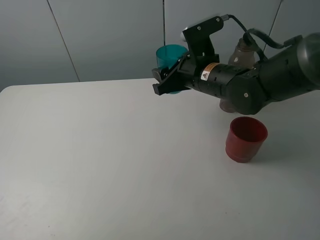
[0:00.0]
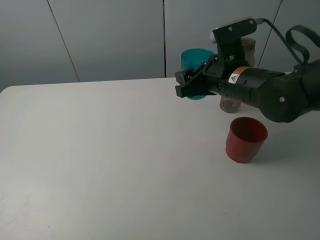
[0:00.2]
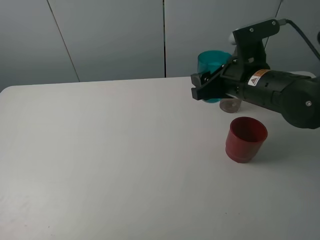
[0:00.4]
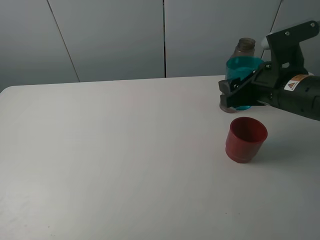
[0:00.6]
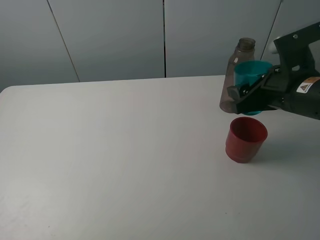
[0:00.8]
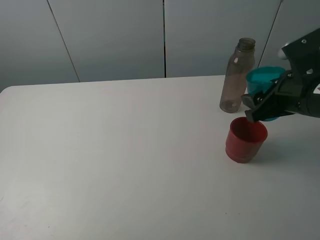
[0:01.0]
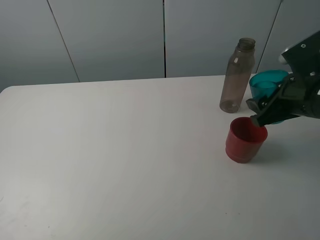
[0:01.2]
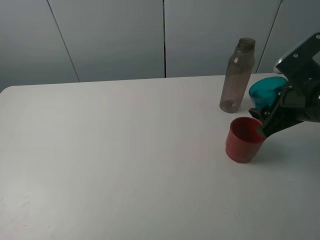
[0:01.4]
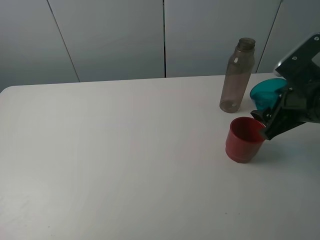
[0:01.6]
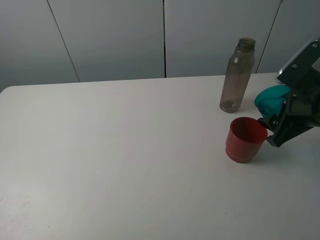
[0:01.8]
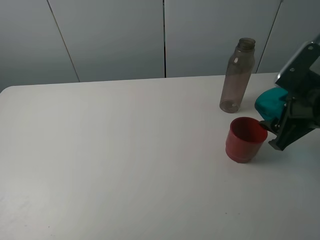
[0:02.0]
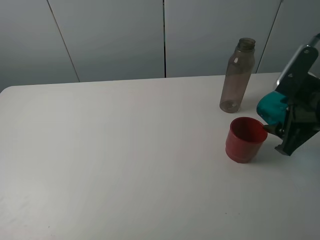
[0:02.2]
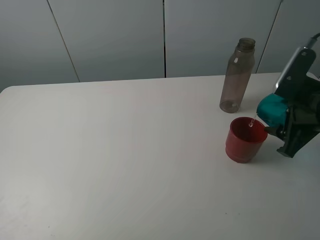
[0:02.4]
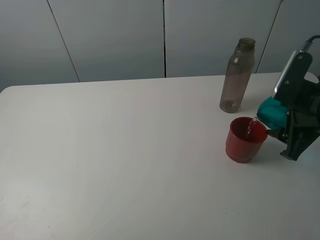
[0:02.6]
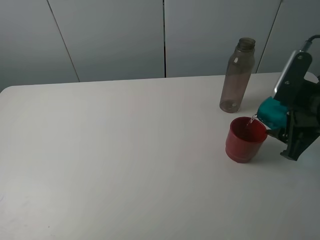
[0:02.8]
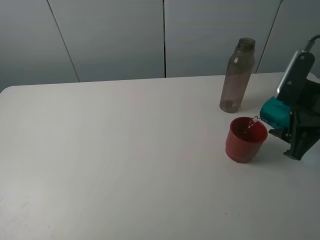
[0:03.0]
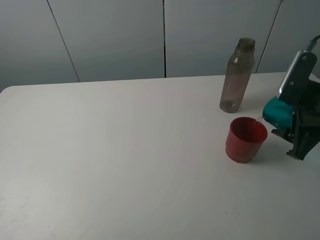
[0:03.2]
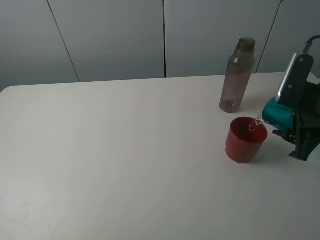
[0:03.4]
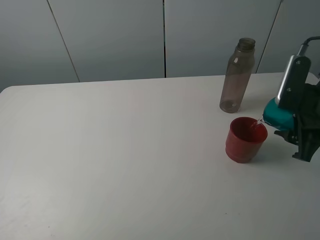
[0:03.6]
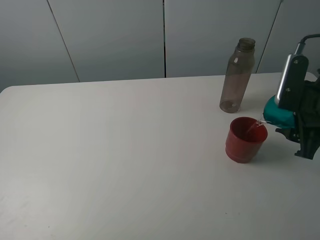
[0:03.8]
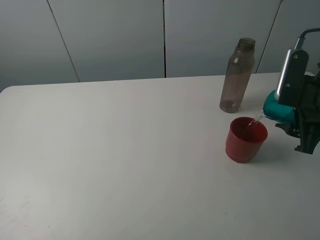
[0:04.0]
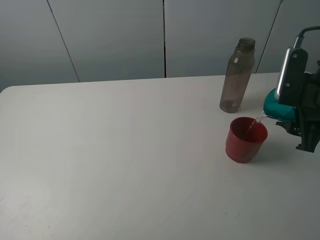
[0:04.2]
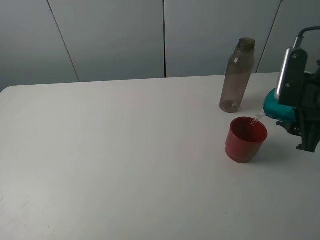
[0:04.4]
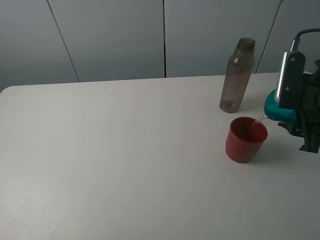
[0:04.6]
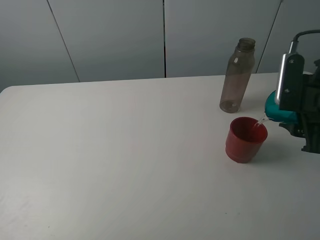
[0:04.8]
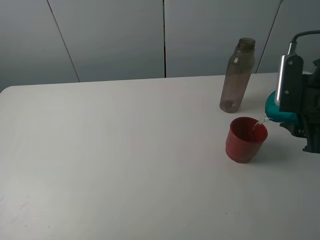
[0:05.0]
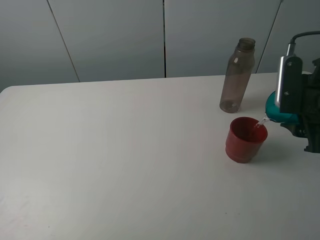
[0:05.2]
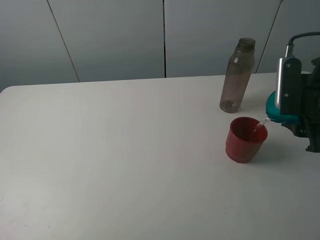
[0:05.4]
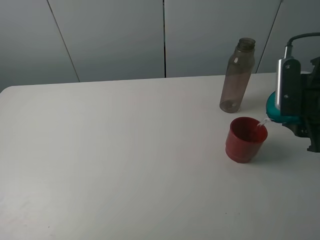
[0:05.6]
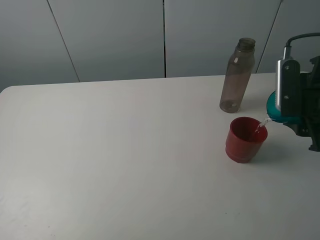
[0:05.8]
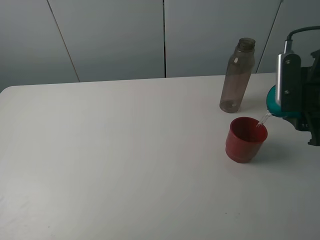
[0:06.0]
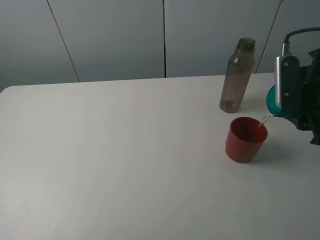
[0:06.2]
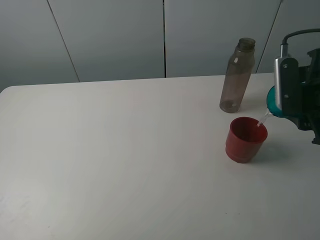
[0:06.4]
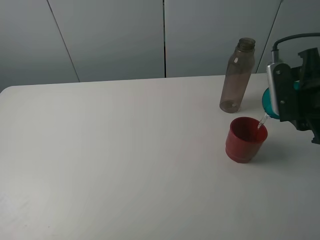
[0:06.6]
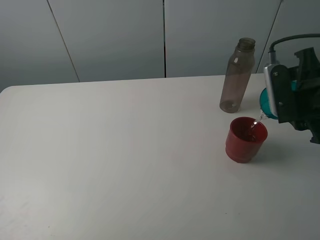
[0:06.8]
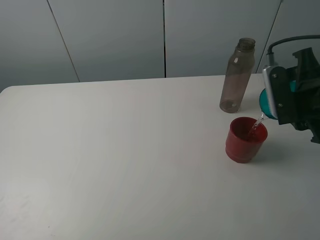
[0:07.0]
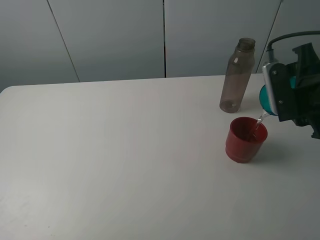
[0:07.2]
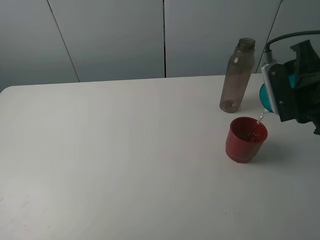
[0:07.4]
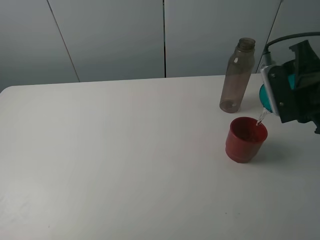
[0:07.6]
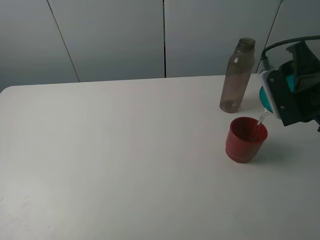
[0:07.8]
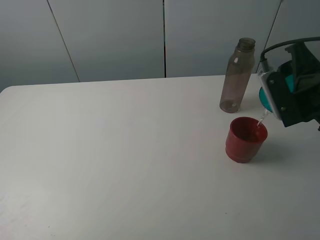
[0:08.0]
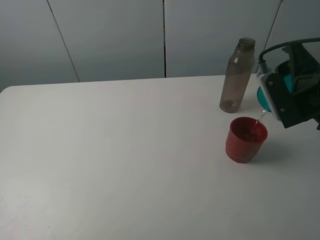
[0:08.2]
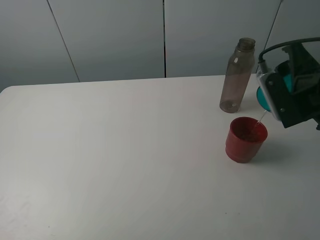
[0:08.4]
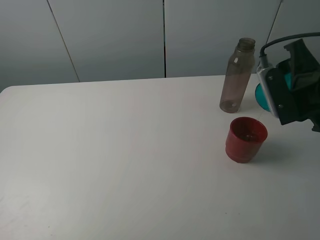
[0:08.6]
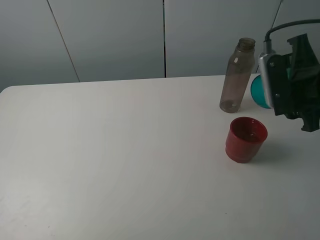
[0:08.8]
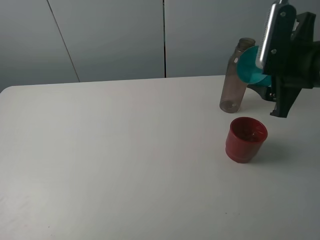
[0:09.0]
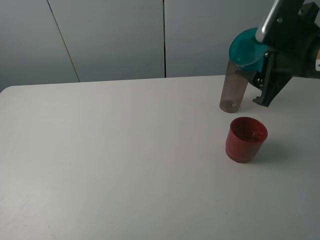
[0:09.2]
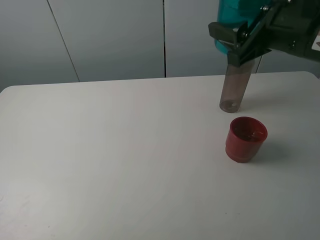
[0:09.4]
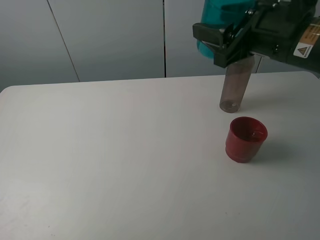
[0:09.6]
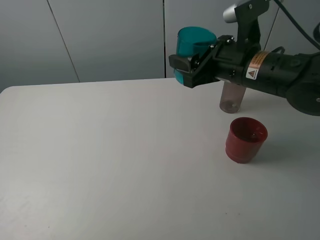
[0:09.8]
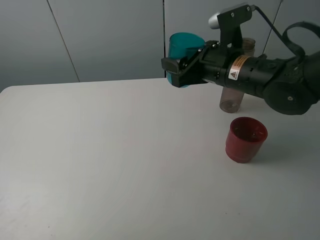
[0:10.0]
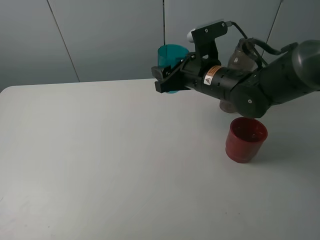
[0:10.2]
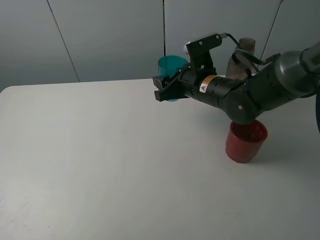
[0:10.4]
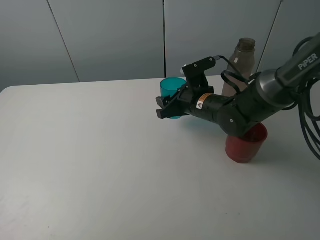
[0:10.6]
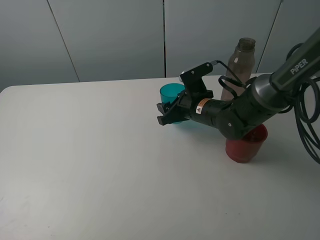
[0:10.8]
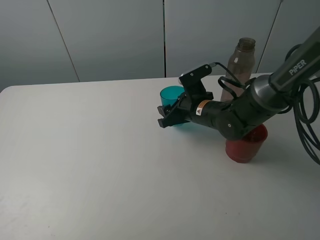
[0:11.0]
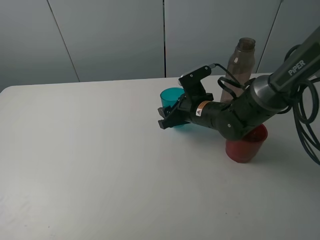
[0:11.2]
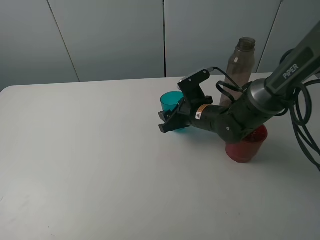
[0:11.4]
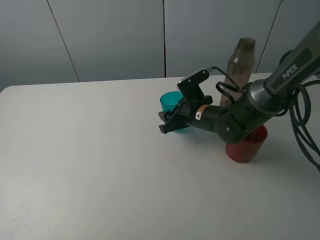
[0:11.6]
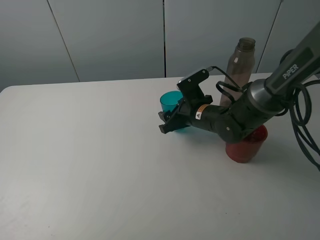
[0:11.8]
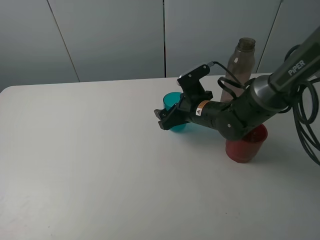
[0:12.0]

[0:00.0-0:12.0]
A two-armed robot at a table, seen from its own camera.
Task of the whole recording: pick up the bottle and pour water into the cup, then pick up the cup containing water and pour it into another cup.
Step, 0:00.0 to 0:08.8: Pour water from blue cup to red cup with the right gripper.
0:00.0 to 0:01.6: The right gripper heads to the right and backward, covering about 20 cm.
0:03.0 to 0:04.4: The grippers move only a little.
0:04.4 to 0:06.0: The grippers make only small movements.
0:09.0 to 0:10.4: The right gripper heads to the left, downward and forward, covering some 20 cm.
0:10.4 to 0:12.0: The right gripper opens.

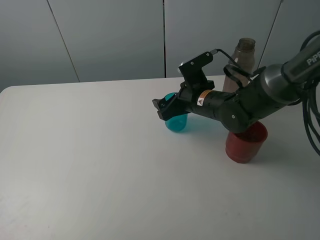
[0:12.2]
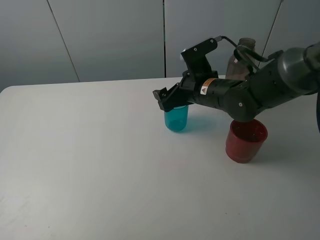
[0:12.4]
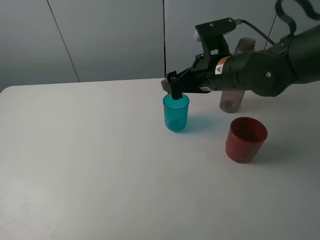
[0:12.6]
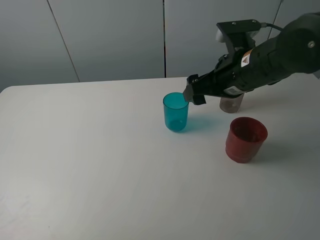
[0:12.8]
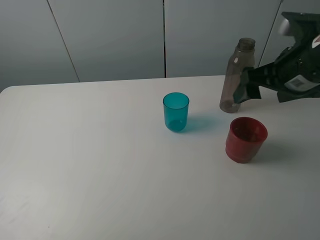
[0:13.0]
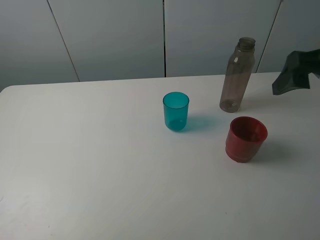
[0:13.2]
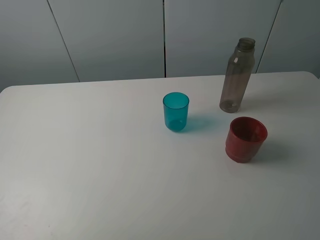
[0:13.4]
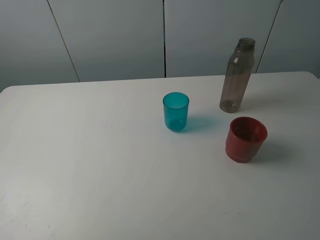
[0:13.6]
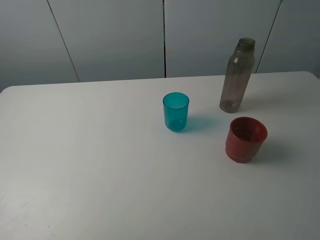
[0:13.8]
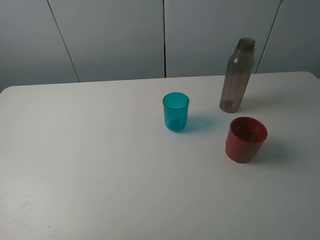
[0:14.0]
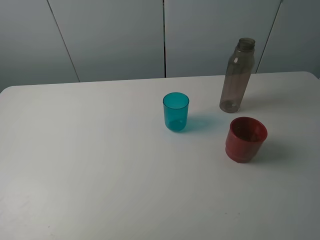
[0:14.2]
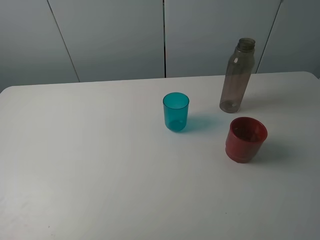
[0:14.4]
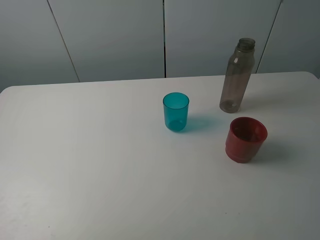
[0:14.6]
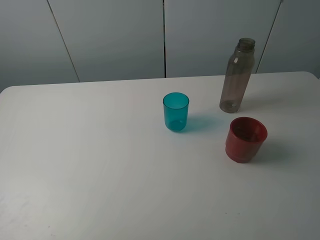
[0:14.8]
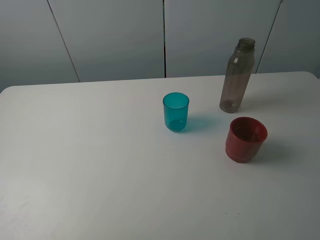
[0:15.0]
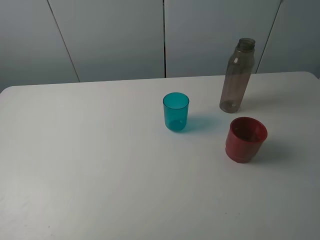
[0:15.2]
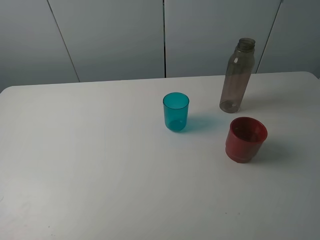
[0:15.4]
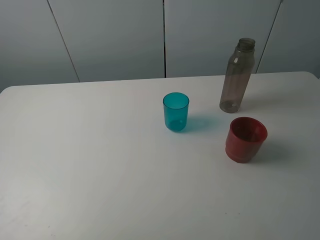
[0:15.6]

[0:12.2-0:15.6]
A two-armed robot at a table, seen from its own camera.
Task of the whole recording: pick up the bottle and pour water into the cup, then pick up the cup containing water and pour it into another cup.
0:12.2 to 0:13.8: The right gripper shifts about 40 cm backward, upward and to the right.

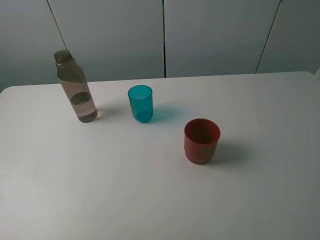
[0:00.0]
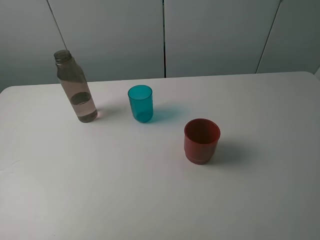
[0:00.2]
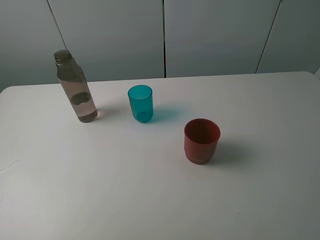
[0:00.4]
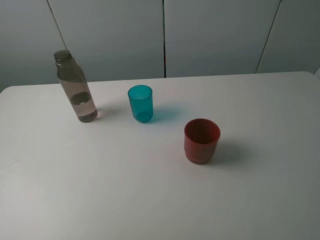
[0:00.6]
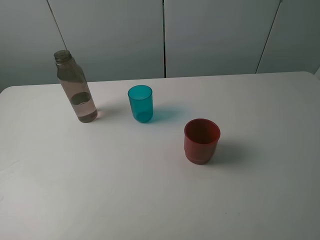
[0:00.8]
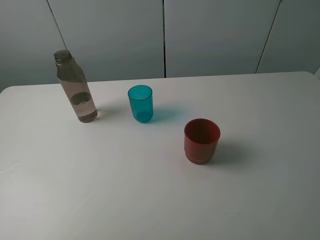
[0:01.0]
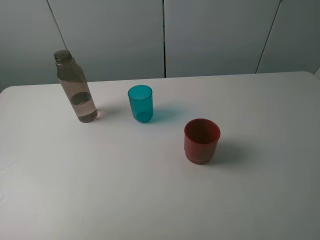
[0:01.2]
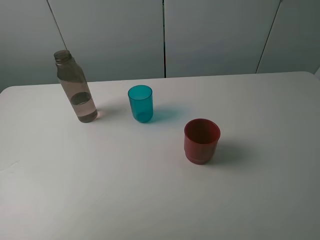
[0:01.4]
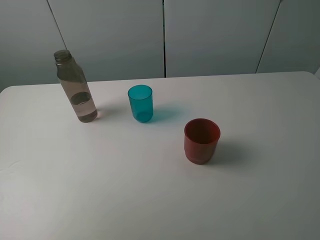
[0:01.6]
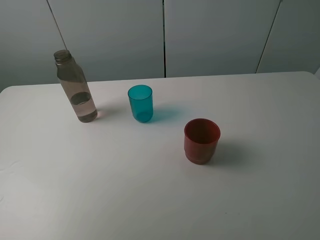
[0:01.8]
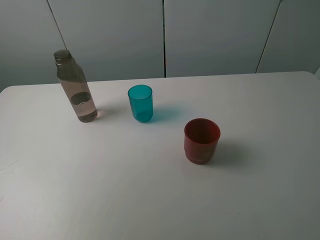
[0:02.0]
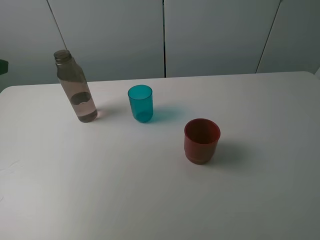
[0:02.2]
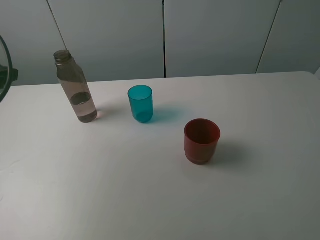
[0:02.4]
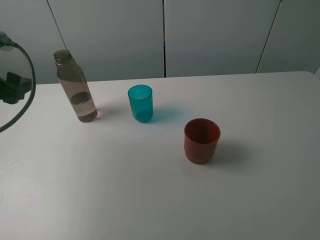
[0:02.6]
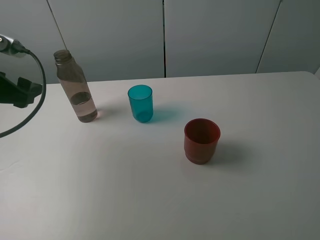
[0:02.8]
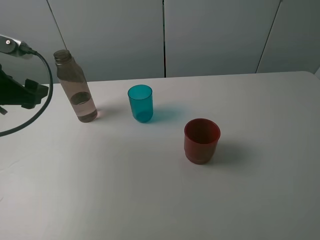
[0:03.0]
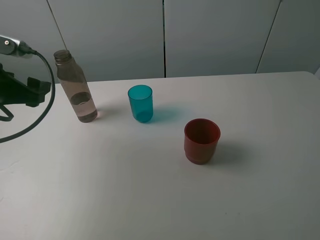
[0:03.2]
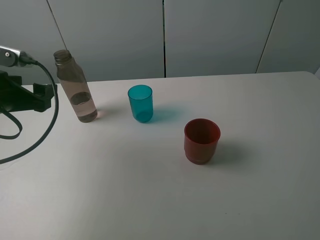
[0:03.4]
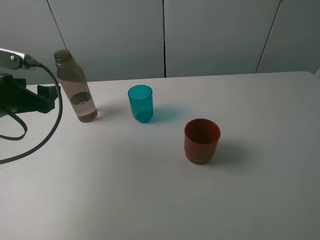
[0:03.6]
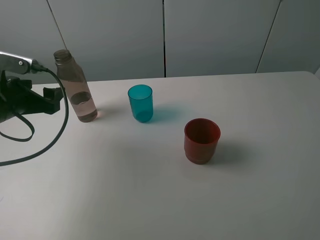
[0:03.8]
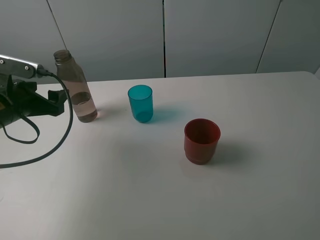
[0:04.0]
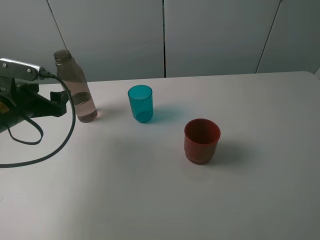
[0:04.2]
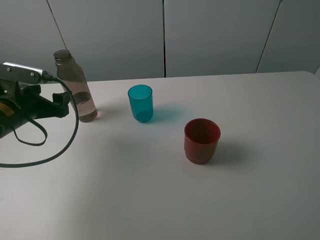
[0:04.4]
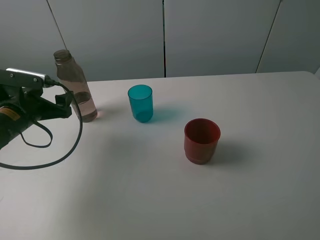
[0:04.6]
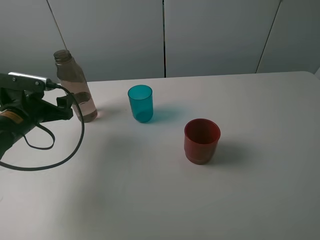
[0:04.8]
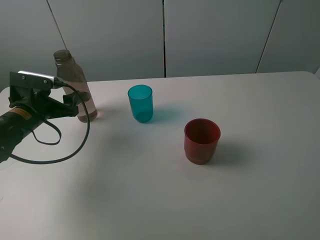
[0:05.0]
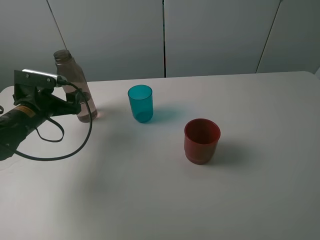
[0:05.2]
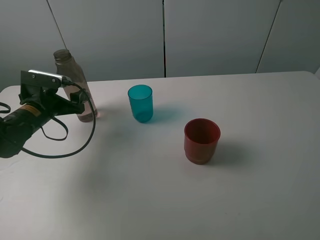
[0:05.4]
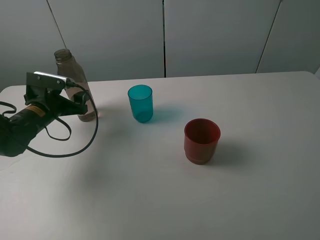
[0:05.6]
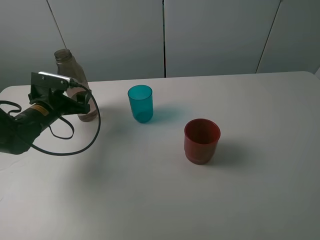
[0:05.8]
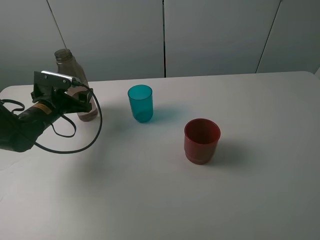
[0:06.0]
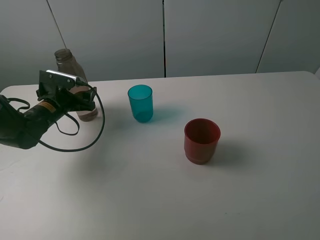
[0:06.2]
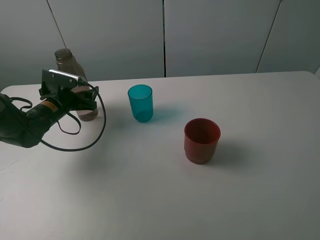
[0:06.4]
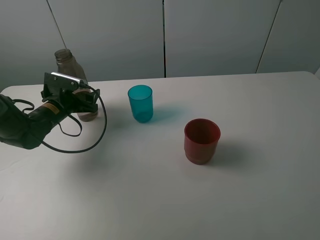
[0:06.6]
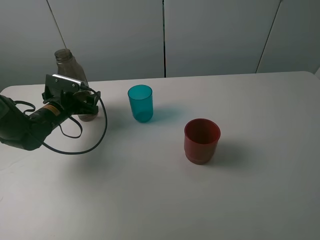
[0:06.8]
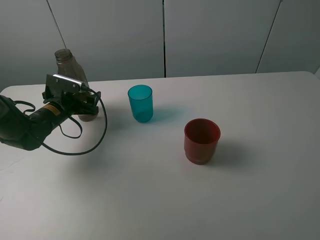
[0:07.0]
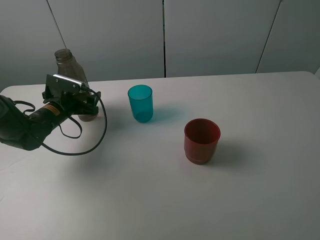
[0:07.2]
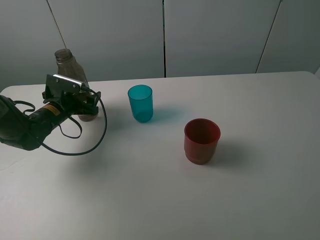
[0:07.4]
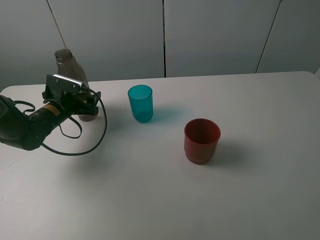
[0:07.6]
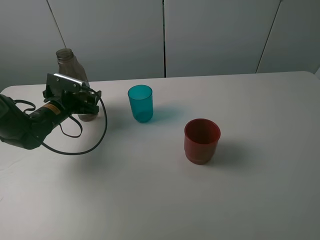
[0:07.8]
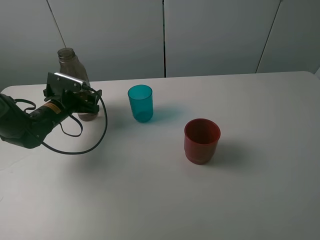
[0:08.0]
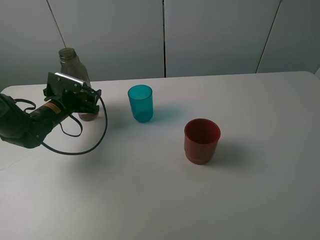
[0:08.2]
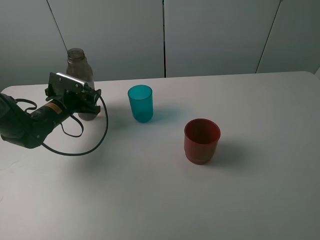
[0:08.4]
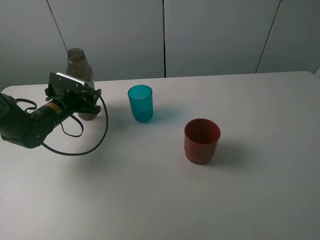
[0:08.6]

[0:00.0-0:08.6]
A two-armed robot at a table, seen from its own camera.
Task of the whole recording: pick up the bottle and pour water into the cup, then pick up the cup containing water and pour it into another cup.
Step, 0:00.0 to 0:08.4: Grasp the brown bottle with the left gripper.
0:01.4 to 0:02.8: The left gripper is displaced forward and downward by about 20 cm.
0:02.8 to 0:04.4: The left gripper travels downward by some 10 cm.
0:04.4 to 0:05.8: The left gripper heads forward and downward, covering roughly 10 cm.
0:05.8 to 0:07.2: The grippers stay close to where they were, moving slightly.
0:07.2 to 0:08.6: The left gripper closes its fingers.
